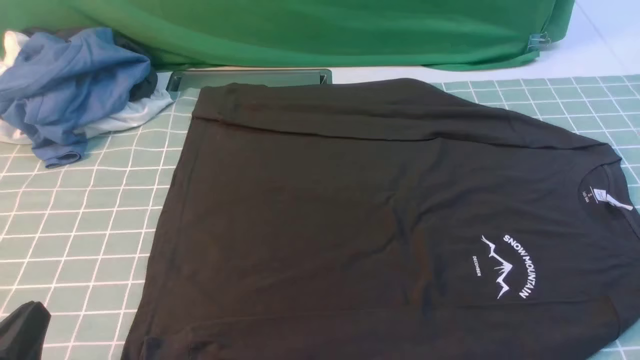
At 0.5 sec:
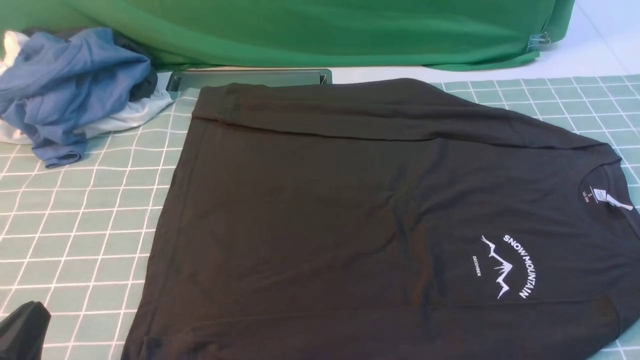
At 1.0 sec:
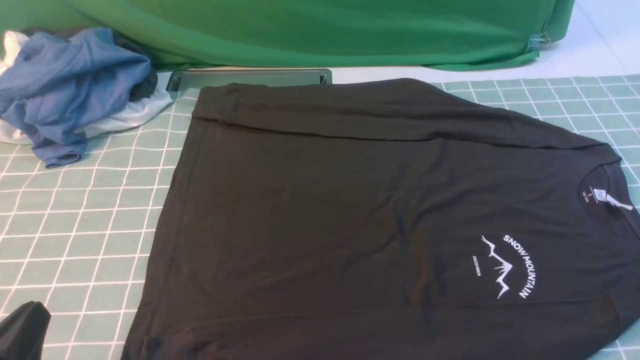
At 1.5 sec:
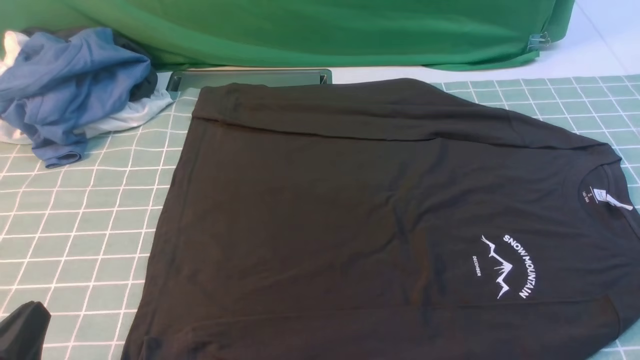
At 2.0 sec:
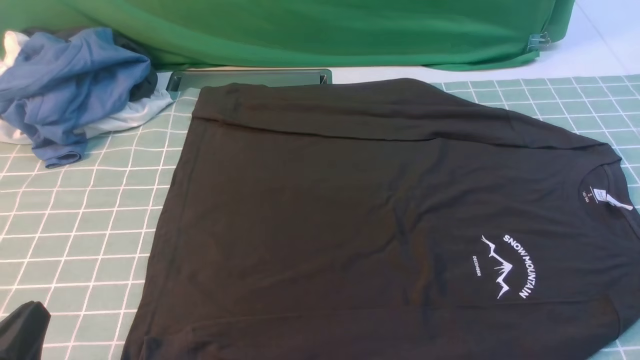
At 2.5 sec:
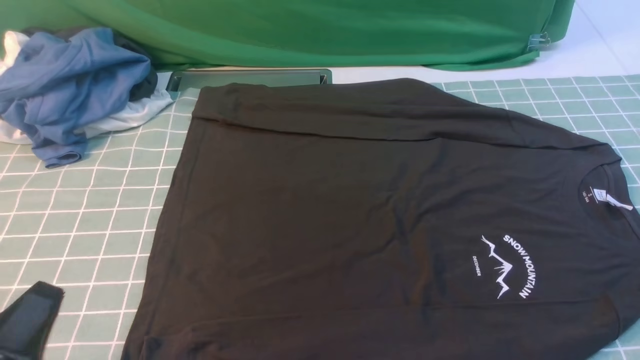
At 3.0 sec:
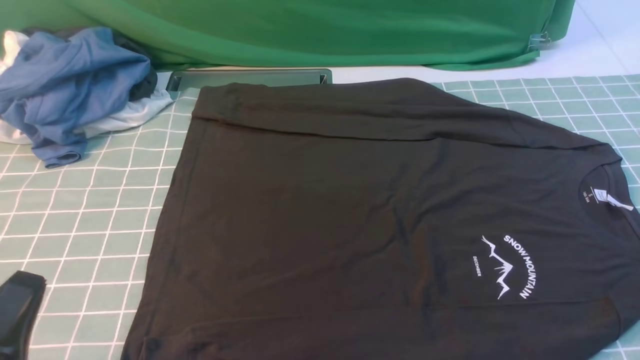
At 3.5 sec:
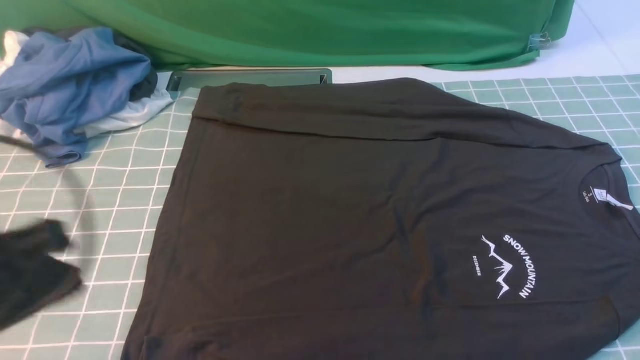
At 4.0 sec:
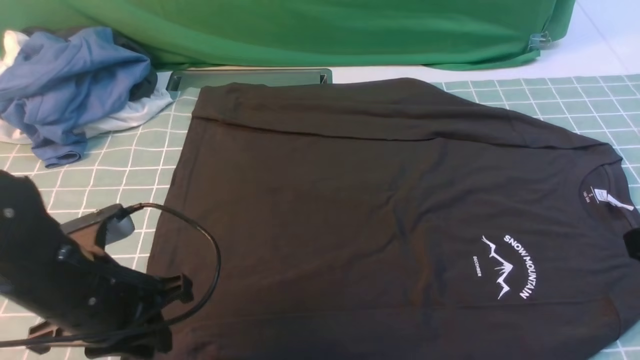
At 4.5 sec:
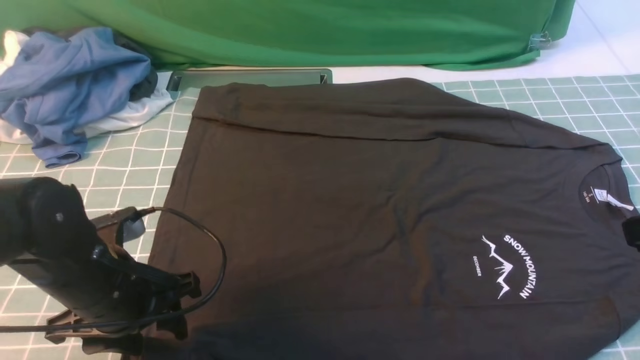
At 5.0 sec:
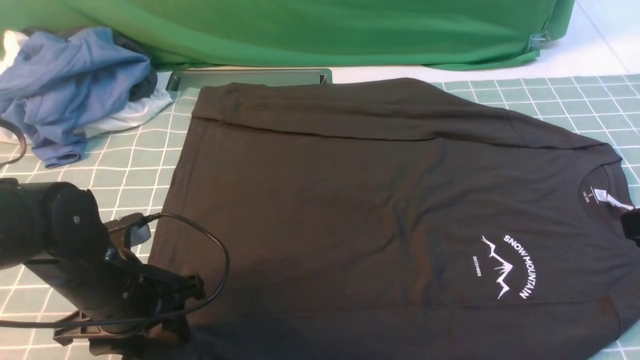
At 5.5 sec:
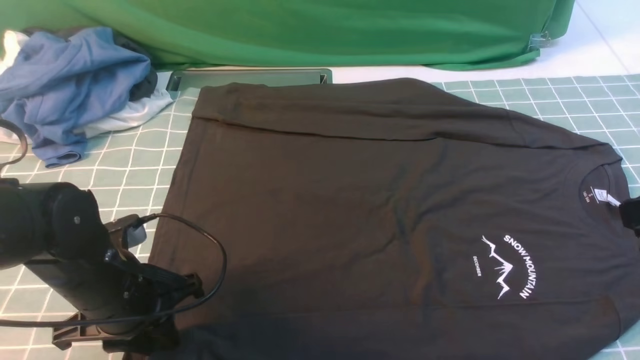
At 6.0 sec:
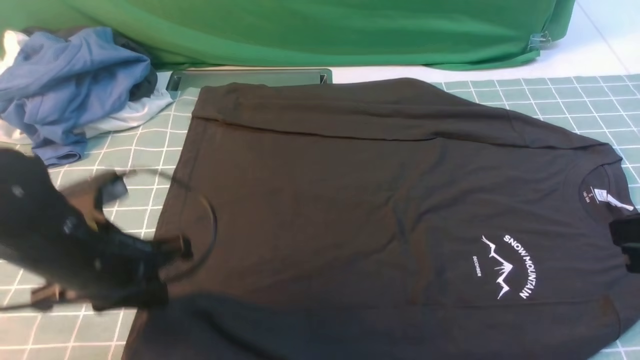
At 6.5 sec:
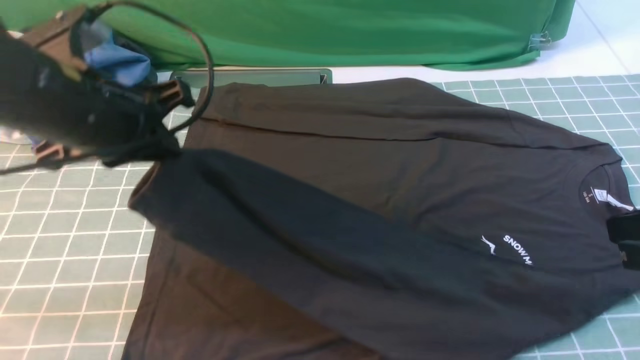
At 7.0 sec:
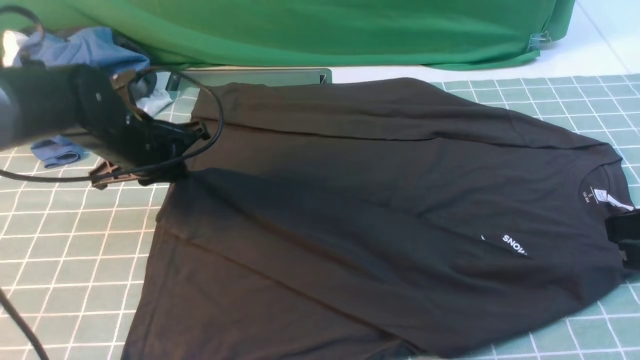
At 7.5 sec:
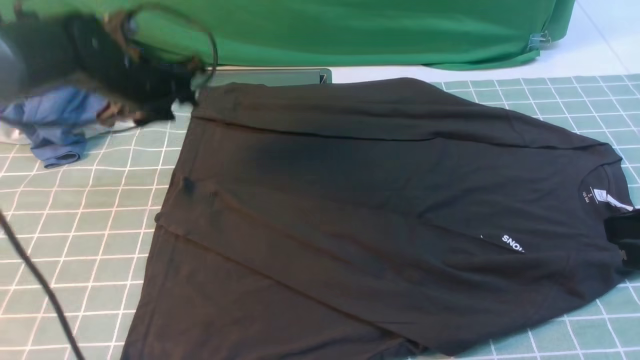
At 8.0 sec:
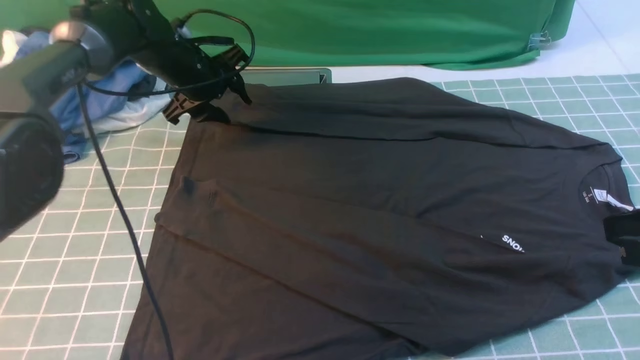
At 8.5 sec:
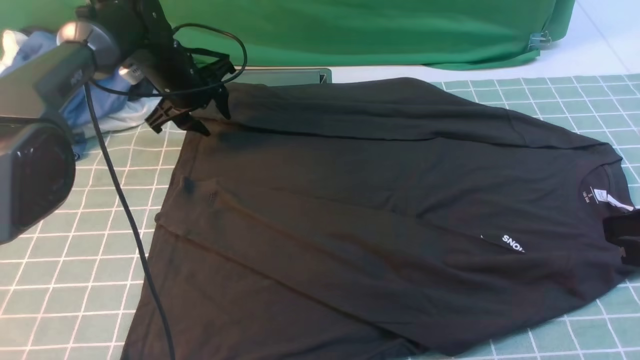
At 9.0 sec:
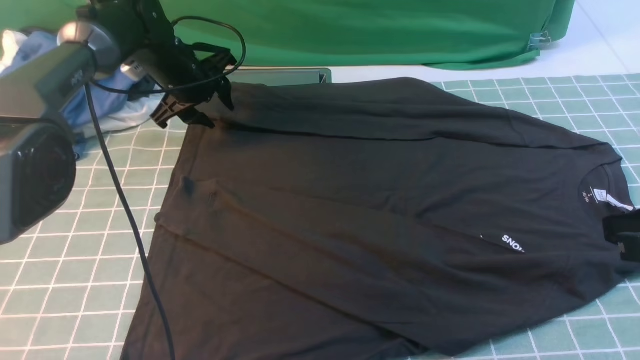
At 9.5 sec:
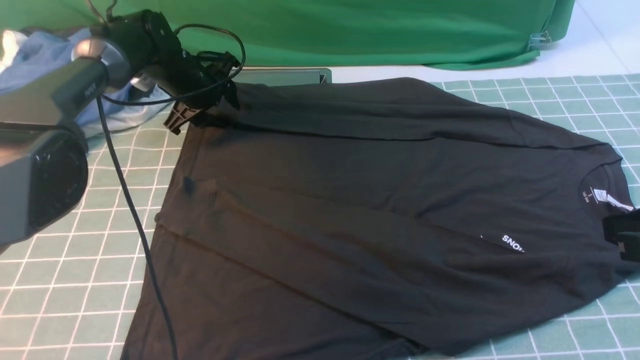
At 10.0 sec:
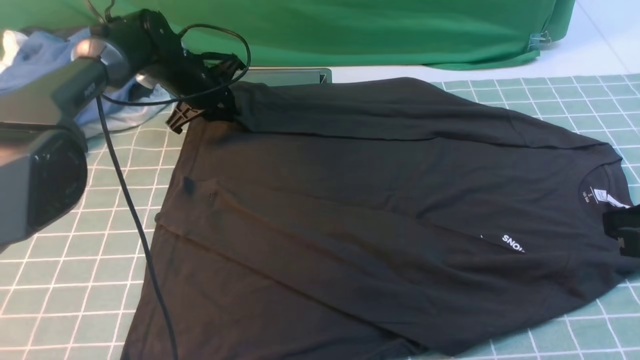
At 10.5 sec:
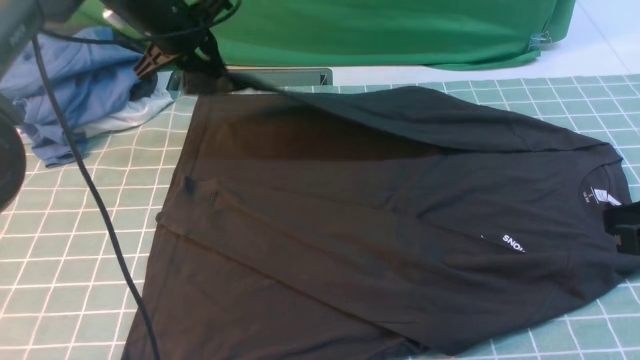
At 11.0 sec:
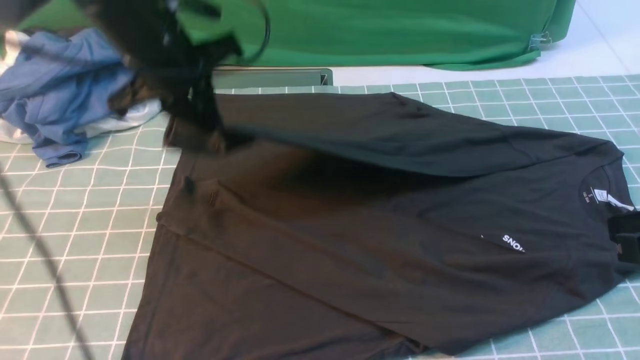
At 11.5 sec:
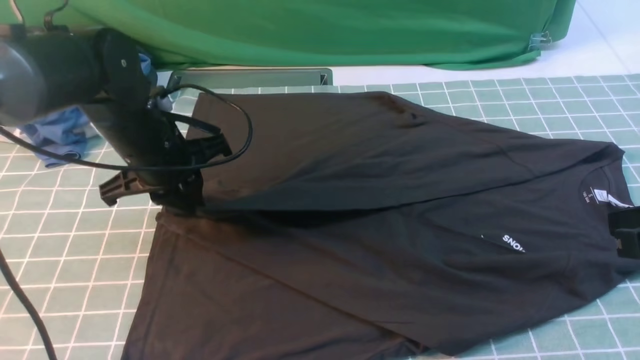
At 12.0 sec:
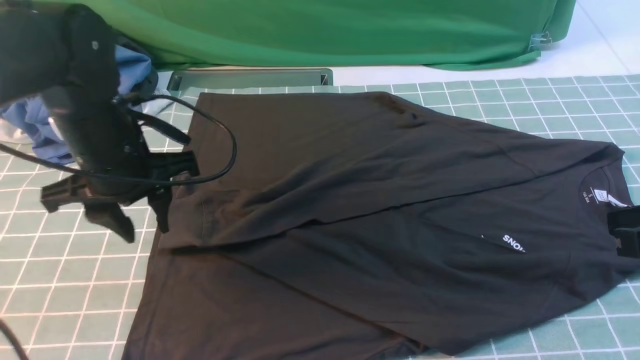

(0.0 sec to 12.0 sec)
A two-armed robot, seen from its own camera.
Step, 0.0 sec - 5.5 sec: use the left arm to clamp the cuff closest to it.
Step, 6.0 sec - 7.0 sec: use the left arm to drag and place the cuff at the centered position on the left edge of the fabric.
Step, 8.0 sec - 10.0 sec: use the left arm to clamp the cuff farthest from it.
Step, 10.5 sec - 11.5 sec: use the left arm to drag and drop the cuff onto the cuff closest to the left arm.
0.0 sec - 2.0 sec: Neither gripper changes place.
2.0 sec - 4.0 sec: The left gripper moves forward, roughly 15 cm.
4.0 sec - 6.0 sec: The left gripper opens, then closes once more.
6.0 sec - 8.0 sec: The left gripper is displaced forward by approximately 30 cm, and opens up.
8.0 sec - 10.0 sec: The left gripper closes up.
10.0 sec - 12.0 sec: The left gripper heads backward, covering approximately 20 cm, and opens up.

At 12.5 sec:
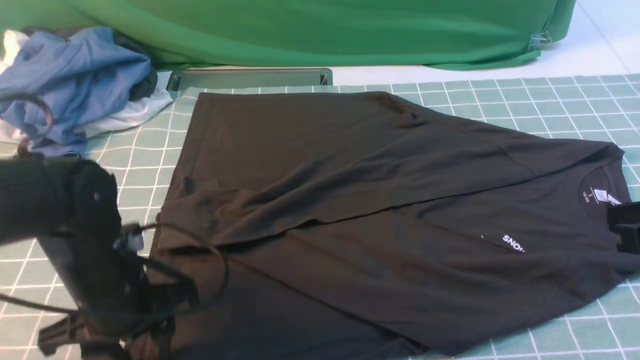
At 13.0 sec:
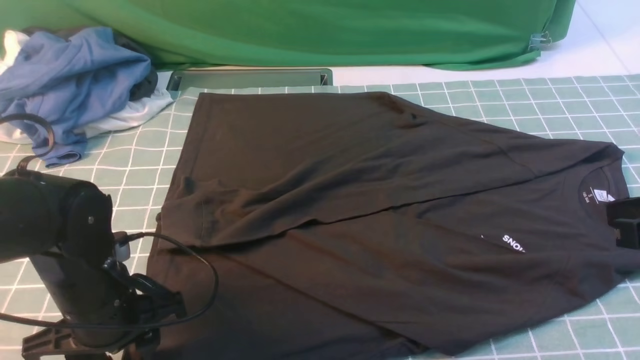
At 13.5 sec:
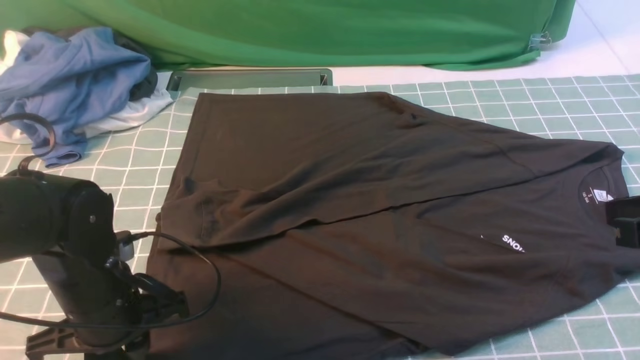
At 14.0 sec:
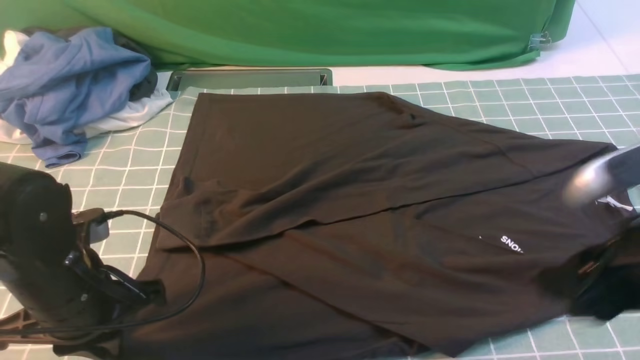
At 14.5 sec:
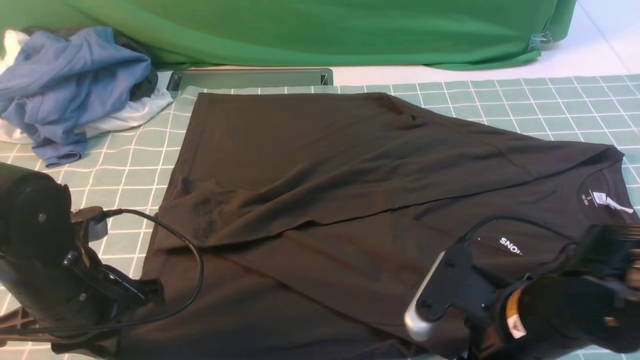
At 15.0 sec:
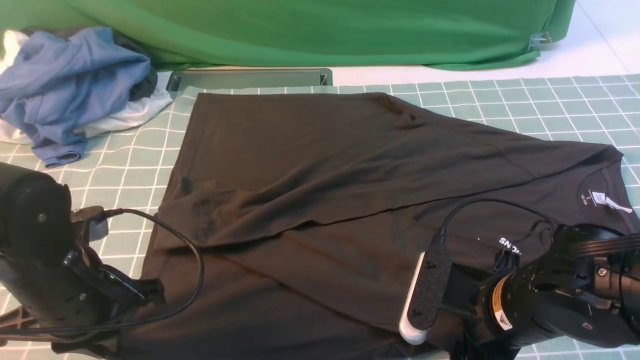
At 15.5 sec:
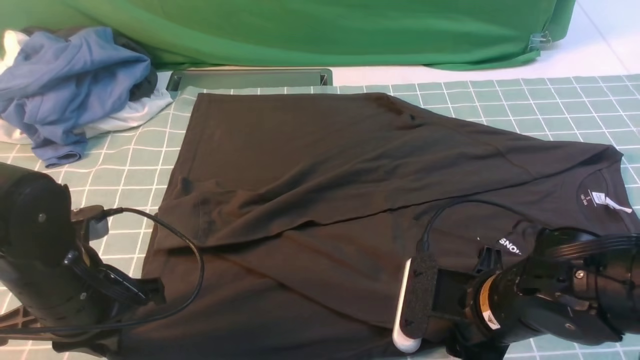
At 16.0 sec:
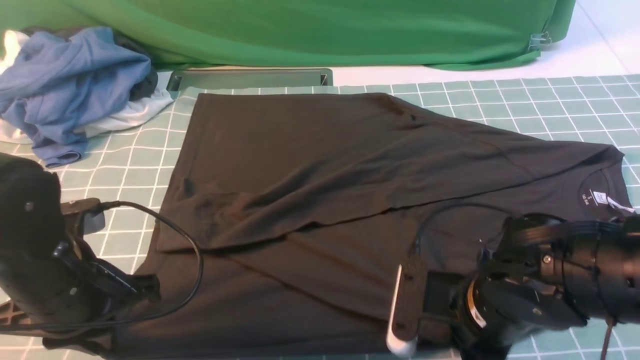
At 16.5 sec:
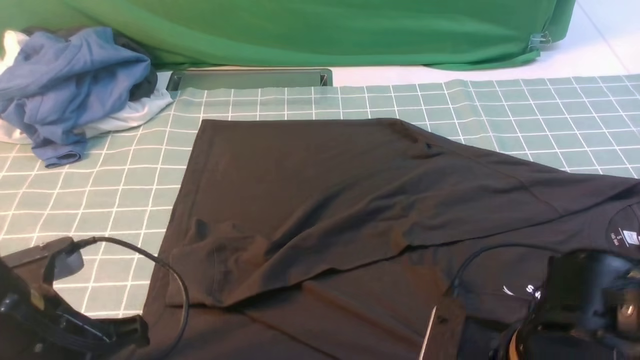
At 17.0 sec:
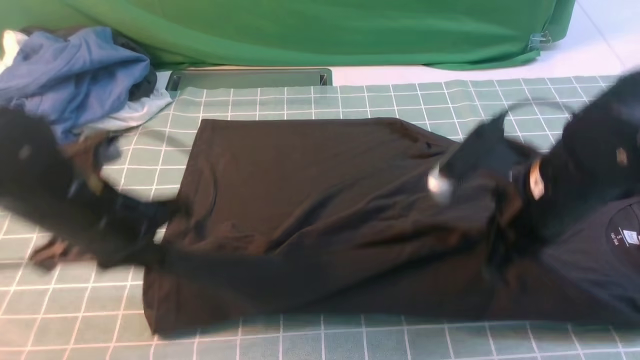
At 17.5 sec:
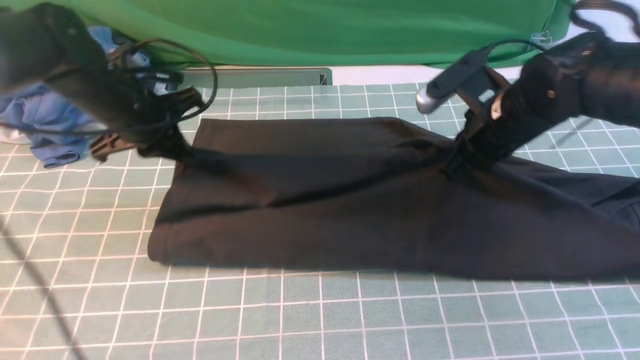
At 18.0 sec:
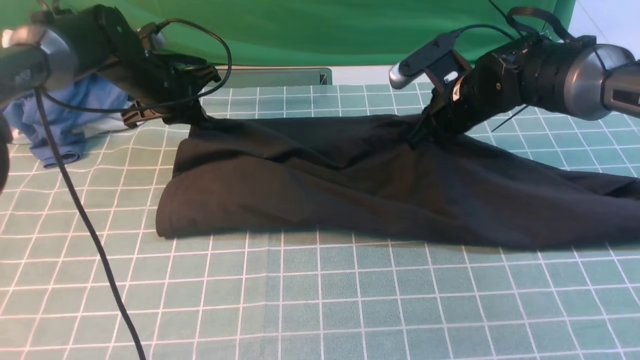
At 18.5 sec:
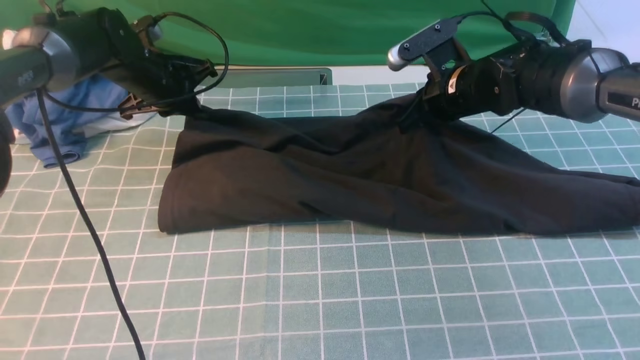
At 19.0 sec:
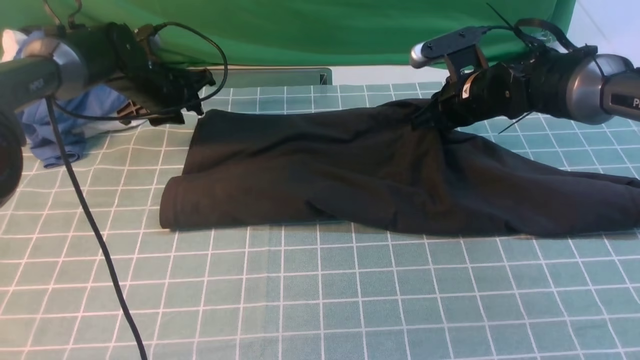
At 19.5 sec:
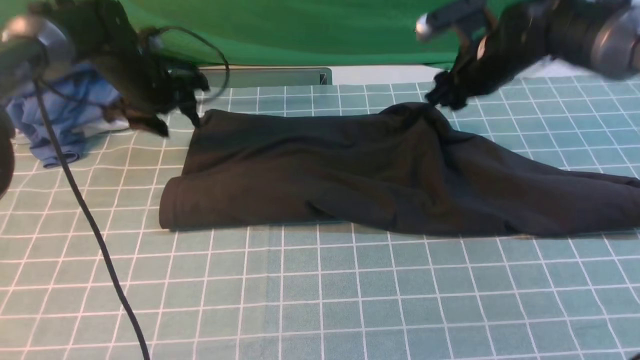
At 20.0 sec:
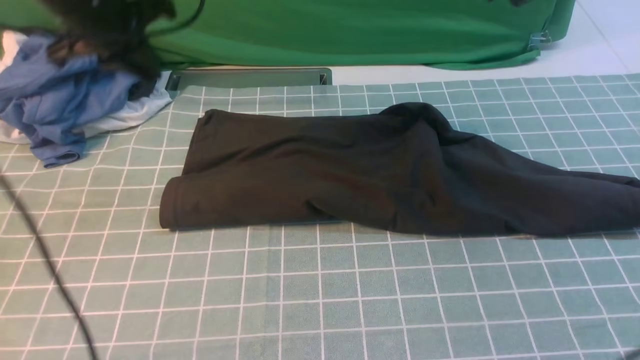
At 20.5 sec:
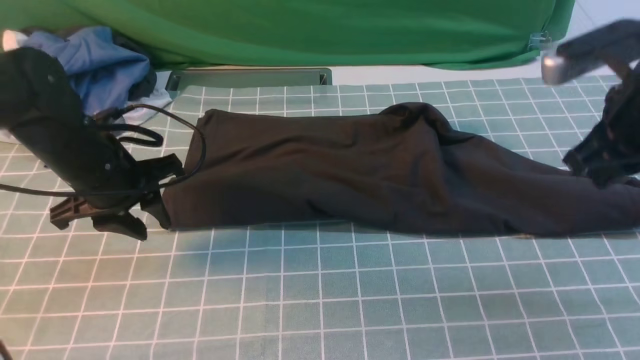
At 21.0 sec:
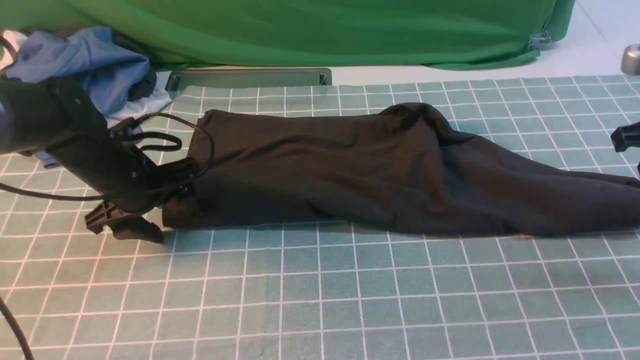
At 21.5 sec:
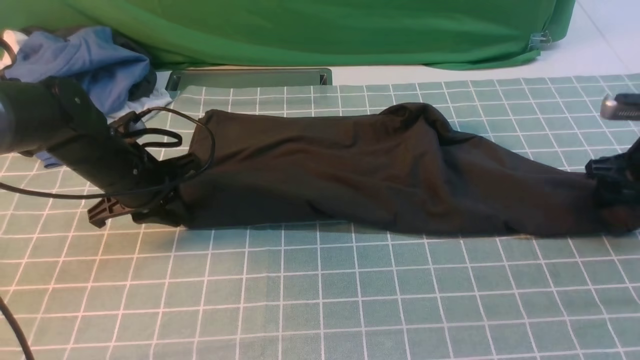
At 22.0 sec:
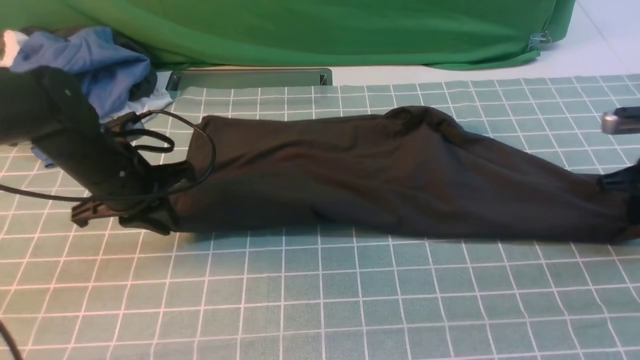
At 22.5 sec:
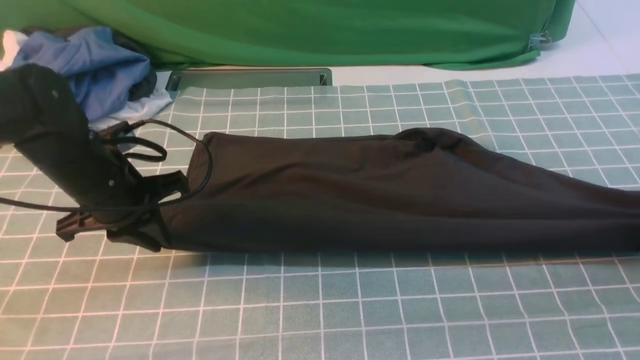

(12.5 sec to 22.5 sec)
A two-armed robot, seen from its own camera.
Step, 12.5 sec - 16.0 sec: use both arms simultaneously to clamp the lower edge of the clothing fabric.
Step, 16.5 sec - 19.5 sec: use both arms to drag the lower edge of the fabric forward and fold it over the upper edge.
12.5 sec - 14.5 sec: The left gripper closes up. Meanwhile the right gripper moves to the left and downward, about 15 cm, and opens its fingers.
14.5 sec - 16.5 sec: The left gripper shifts by approximately 5 cm, while the right gripper closes up.
16.5 sec - 18.5 sec: Both grippers move forward, about 30 cm.
18.5 sec - 20.5 sec: The left gripper shifts roughly 15 cm backward, and opens. Meanwhile the right gripper is displaced backward, upward and to the right by some 20 cm, and opens, then closes again.
20.5 sec - 22.5 sec: The right gripper travels to the right and downward by about 20 cm, and opens and closes again. Meanwhile the left gripper closes its fingers.
